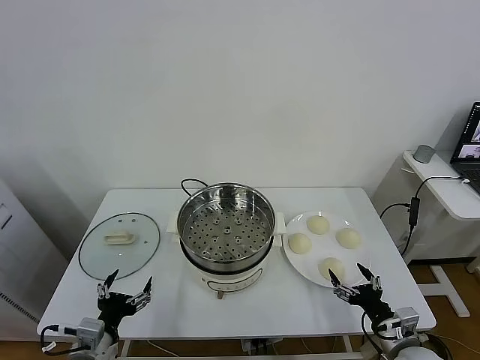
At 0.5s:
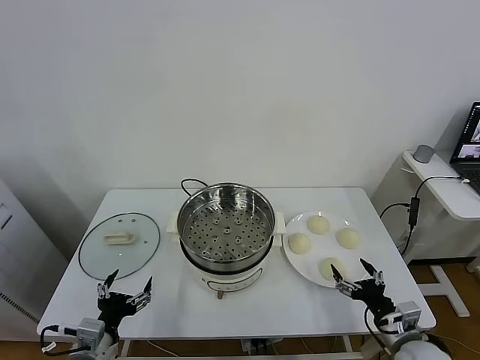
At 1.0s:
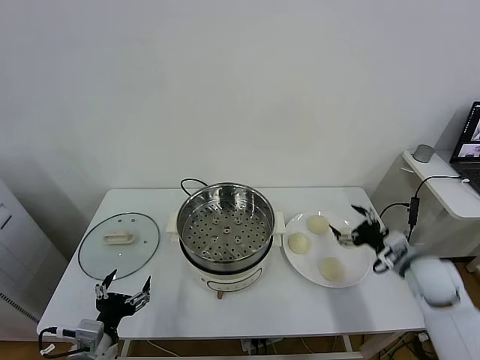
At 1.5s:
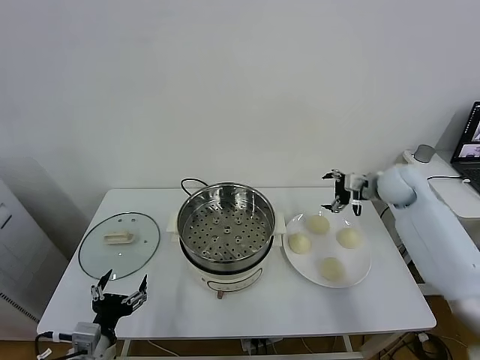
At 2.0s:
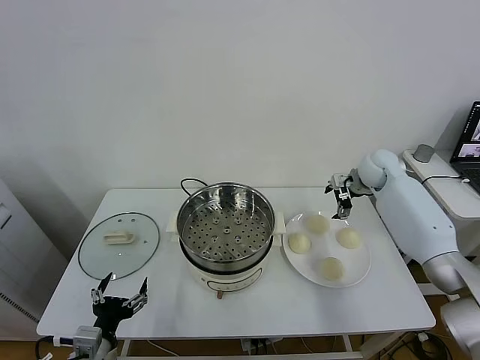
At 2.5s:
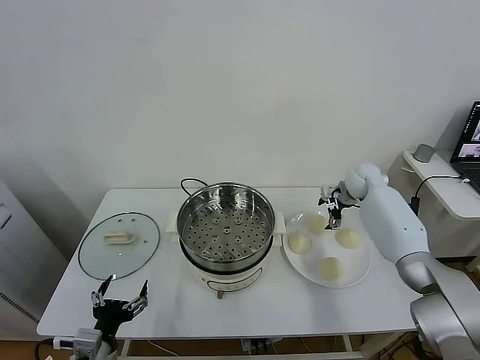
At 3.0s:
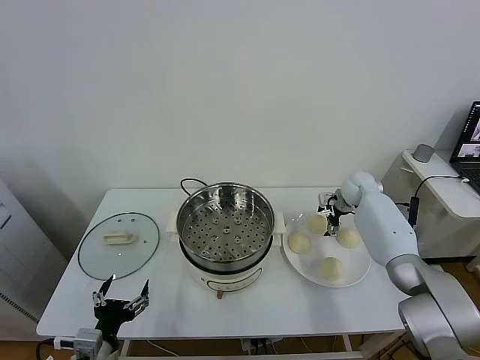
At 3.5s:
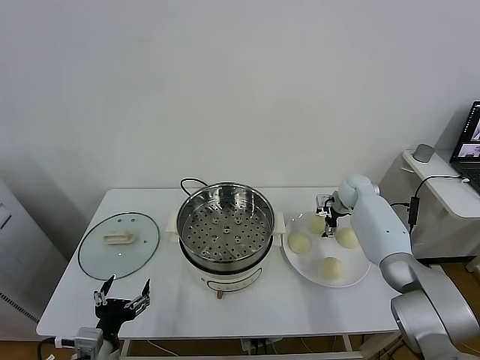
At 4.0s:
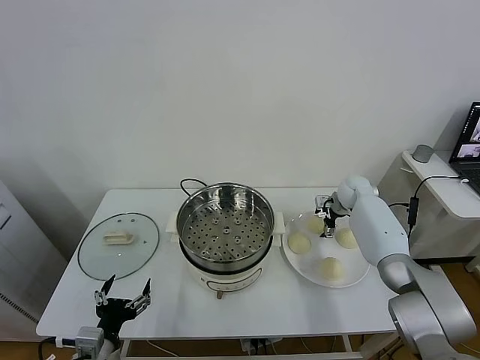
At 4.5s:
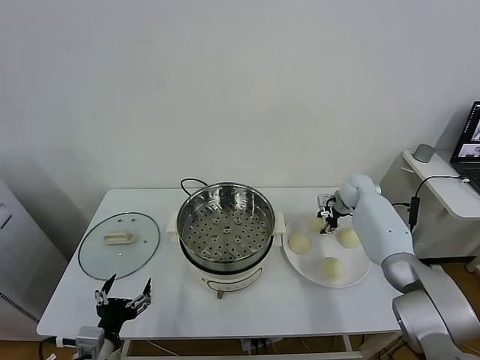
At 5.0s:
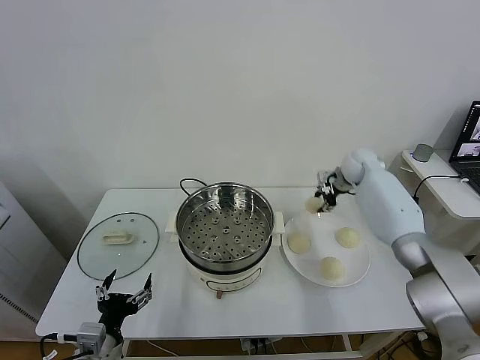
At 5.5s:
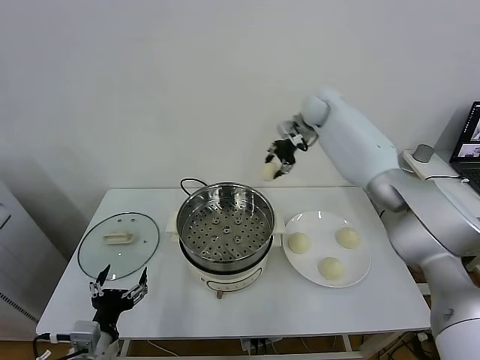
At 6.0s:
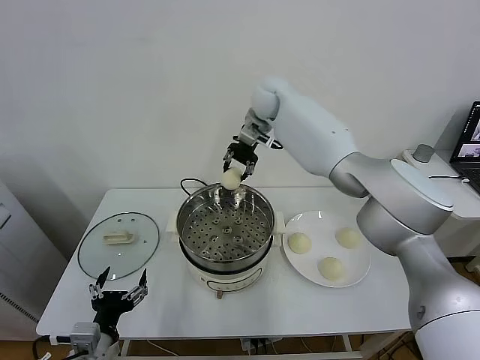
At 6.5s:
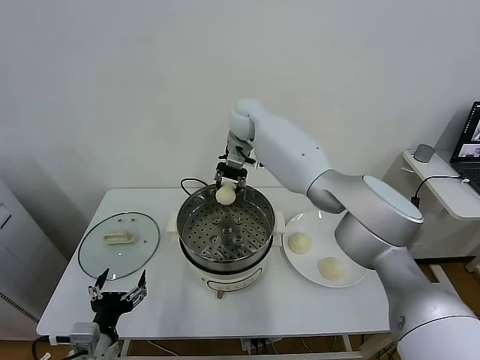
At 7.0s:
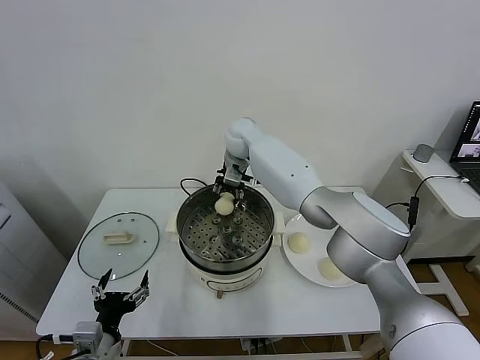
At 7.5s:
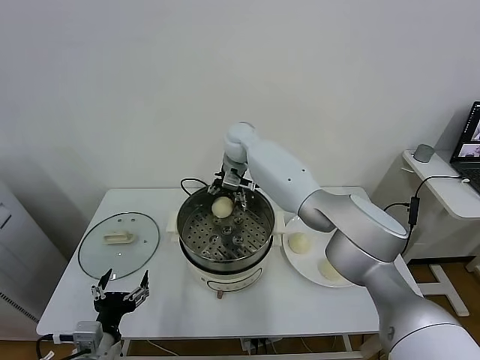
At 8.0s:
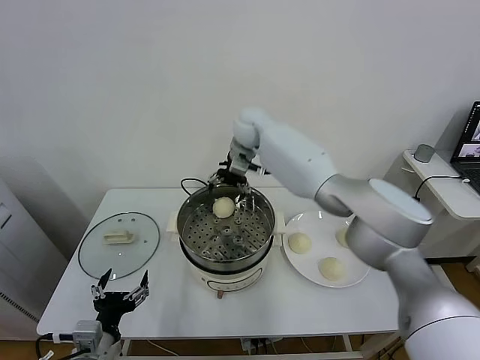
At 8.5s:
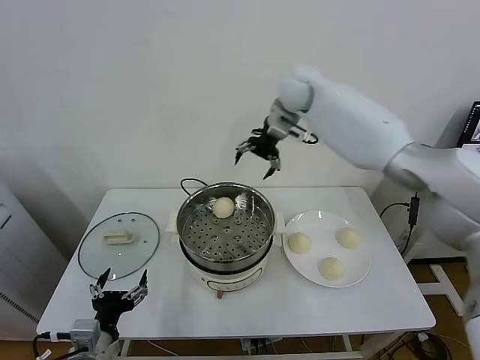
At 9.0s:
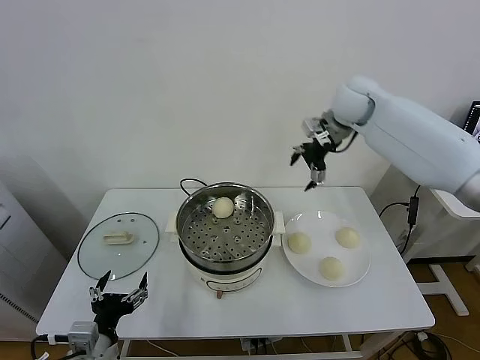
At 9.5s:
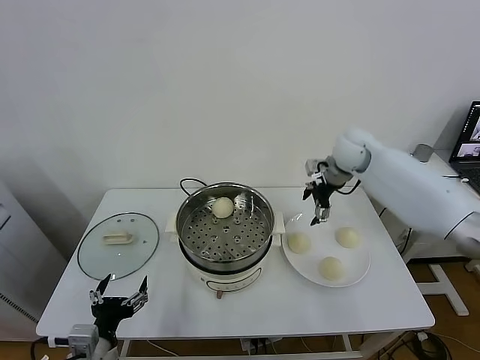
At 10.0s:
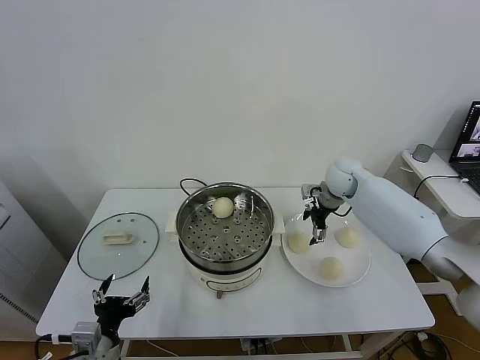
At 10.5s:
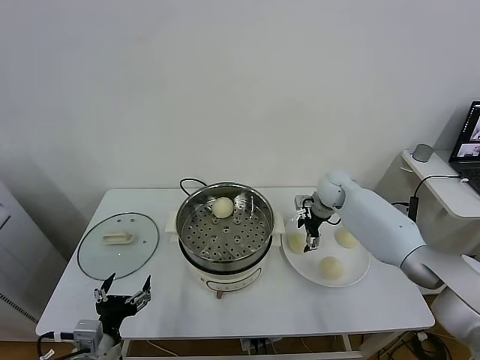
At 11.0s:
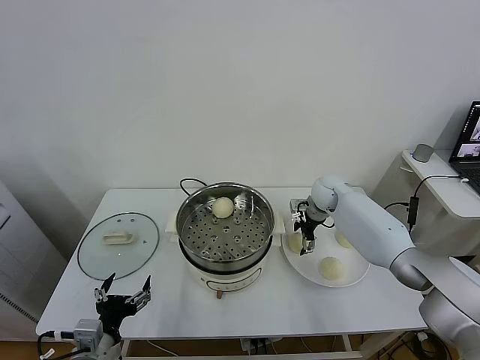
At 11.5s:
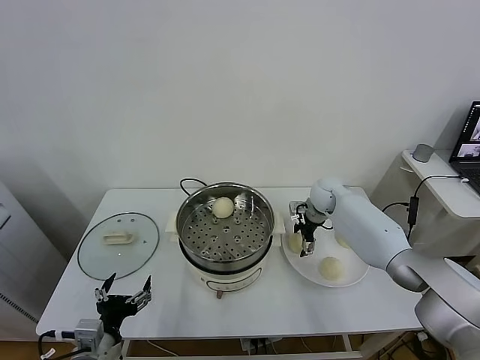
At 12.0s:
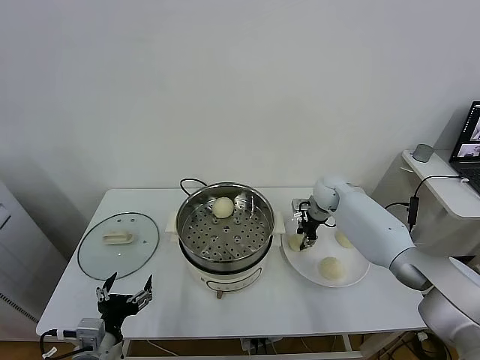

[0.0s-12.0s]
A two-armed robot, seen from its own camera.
Task of the whole recording: take steamed baozi put them in steamer.
Step, 0.0s to 4.0s: Grasp the baozi in the plate with right gripper.
Step, 5.0s to 7.5s: Place the baozi on the steamer with right gripper.
Step, 8.0s to 12.0s: Grasp the baozi in the plate with right gripper.
2.0s to 4.0s: The right gripper heads downward, covering about 10 cm.
4.0s to 6.0s: The right gripper heads upward and to the left, covering about 40 cm, and closes its fingers.
6.0s to 8.0s: The right gripper is displaced downward by some 5 cm, and opens.
8.0s to 10.0s: The right gripper heads to the right and downward, covering approximately 25 cm.
10.0s to 12.0s: The right gripper is displaced downward by some 5 cm, and closes up.

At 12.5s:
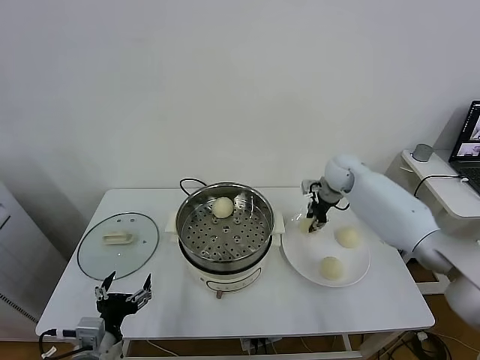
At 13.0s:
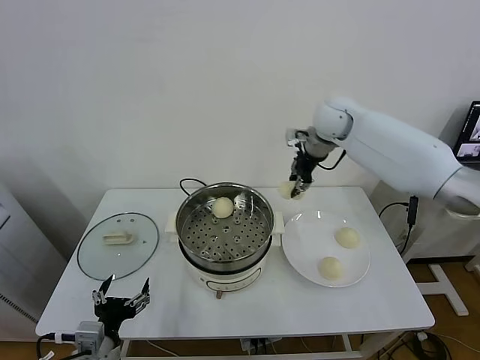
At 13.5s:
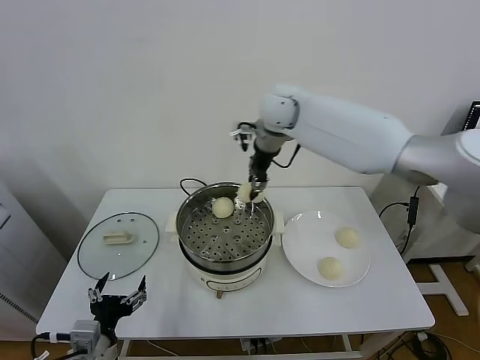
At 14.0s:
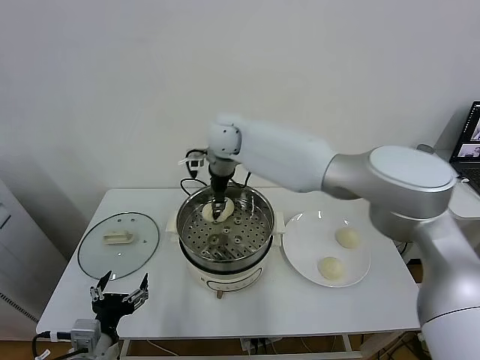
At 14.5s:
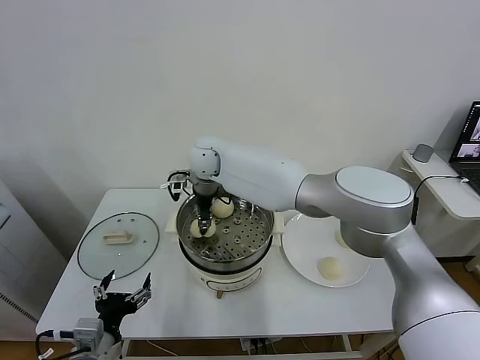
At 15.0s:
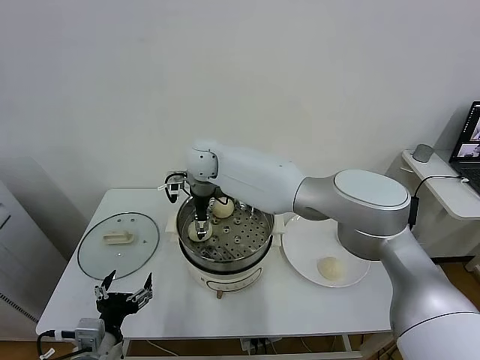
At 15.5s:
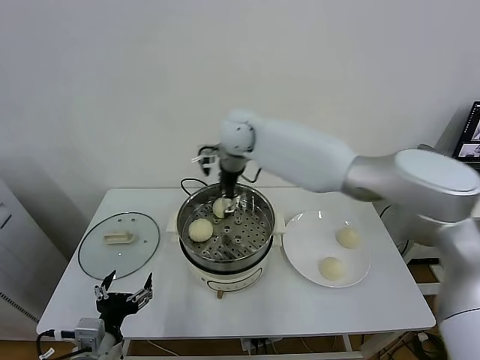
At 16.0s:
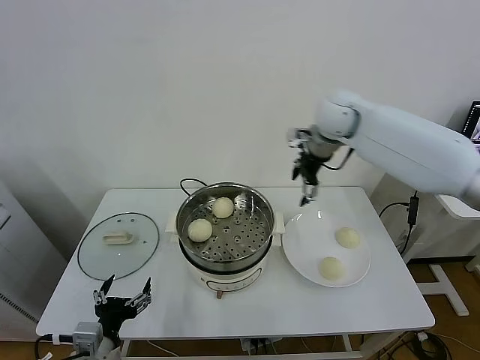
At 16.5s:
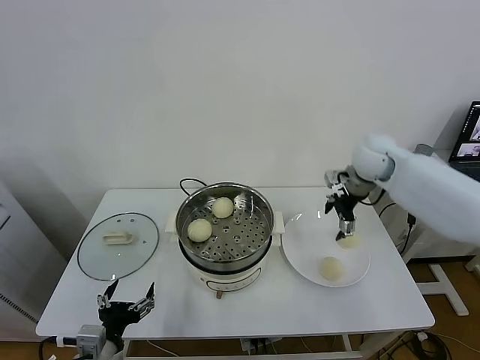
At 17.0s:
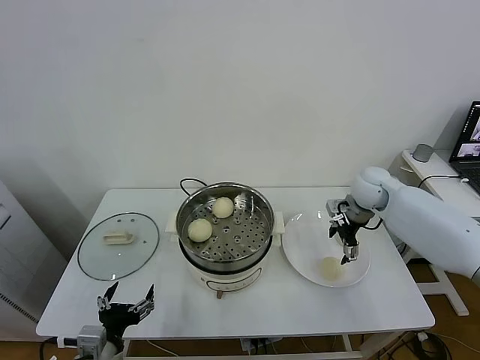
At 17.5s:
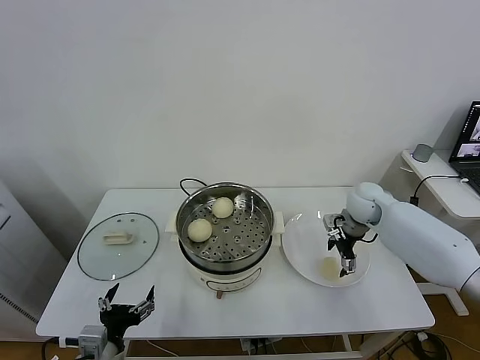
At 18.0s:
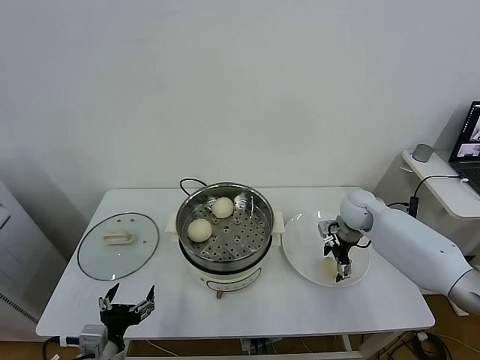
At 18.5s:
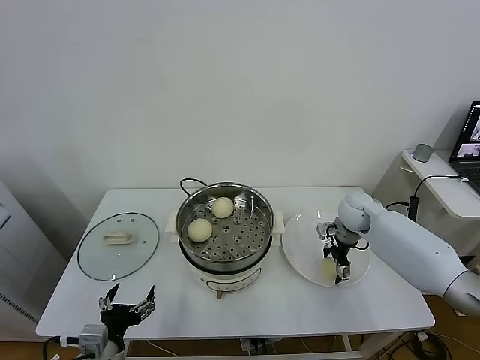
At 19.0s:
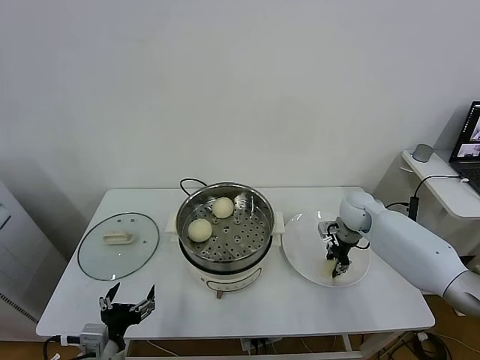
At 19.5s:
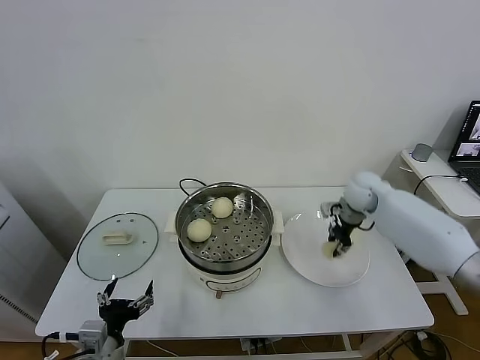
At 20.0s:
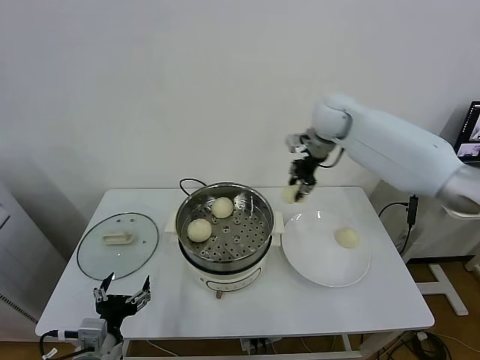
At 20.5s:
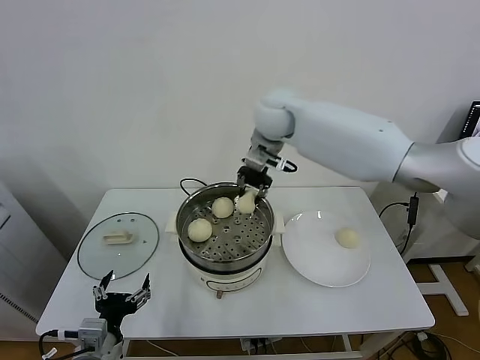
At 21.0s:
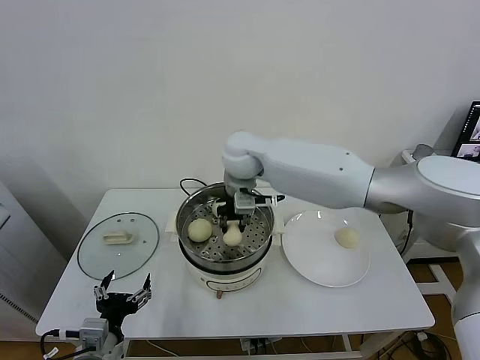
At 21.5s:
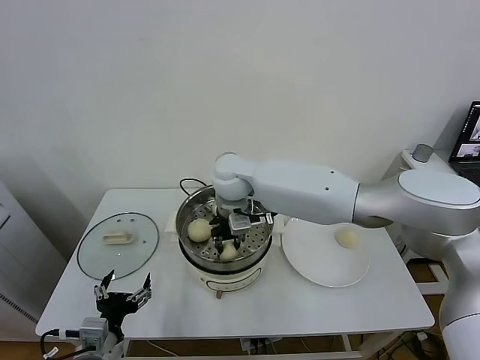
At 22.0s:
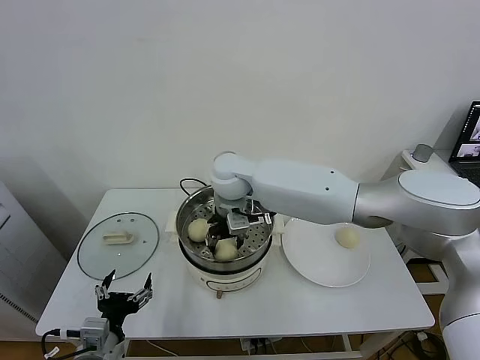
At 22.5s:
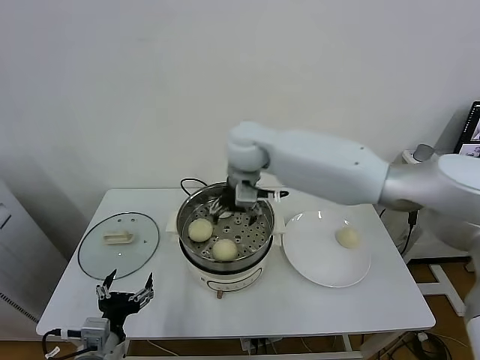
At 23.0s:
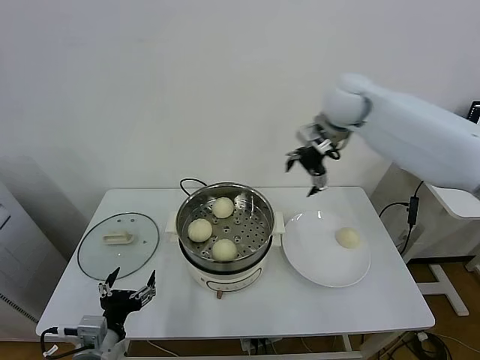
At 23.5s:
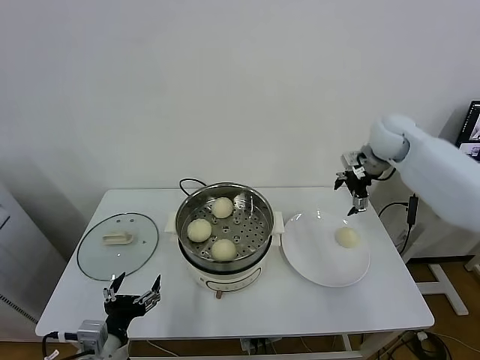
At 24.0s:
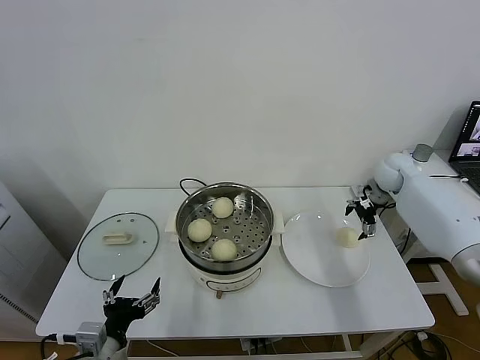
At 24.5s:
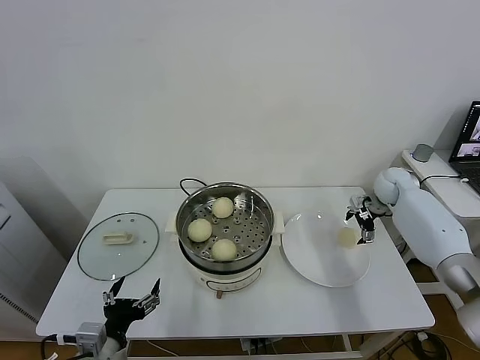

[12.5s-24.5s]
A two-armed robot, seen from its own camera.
Task of the whole recording: take steamed baozi put them in steamer.
Step, 12.5s to 15.0s: Place the baozi on the steamer with right gripper.
Step, 15.5s to 19.0s: Grasp the baozi in the plate with right gripper.
Step, 19.5s to 22.0s: Place the baozi on the steamer with right gripper.
12.5s to 14.5s: The right gripper is displaced to the left by approximately 35 cm.
14.5s to 16.5s: The right gripper is displaced to the right by about 40 cm, and opens.
16.5s to 18.5s: The right gripper moves downward, roughly 15 cm.
18.5s to 20.5s: The right gripper shifts some 35 cm upward and to the left, and closes its fingers.
20.5s to 22.5s: The right gripper is displaced backward and to the left by about 5 cm, reaches approximately 10 cm downward, then returns, and opens its fingers.
22.5s to 24.5s: The right gripper goes roughly 40 cm to the right and downward.

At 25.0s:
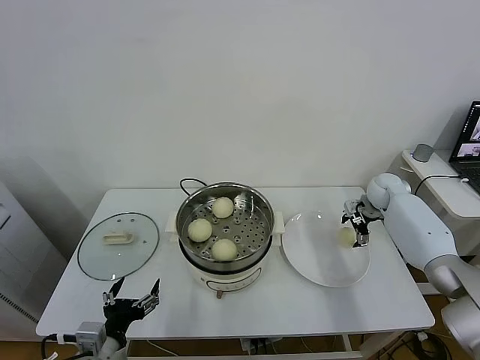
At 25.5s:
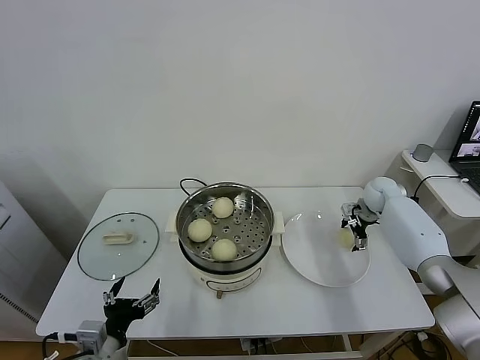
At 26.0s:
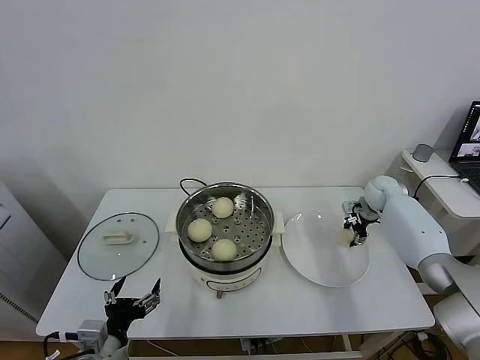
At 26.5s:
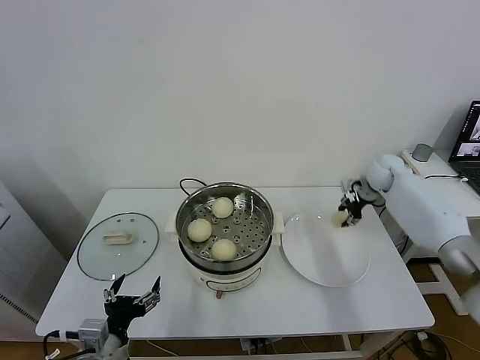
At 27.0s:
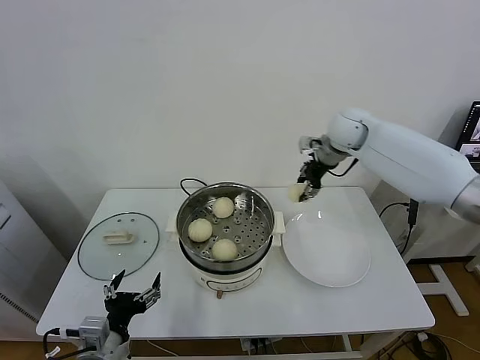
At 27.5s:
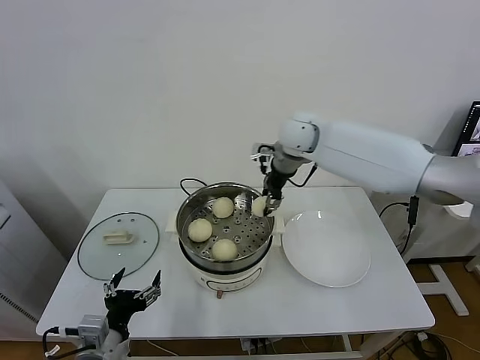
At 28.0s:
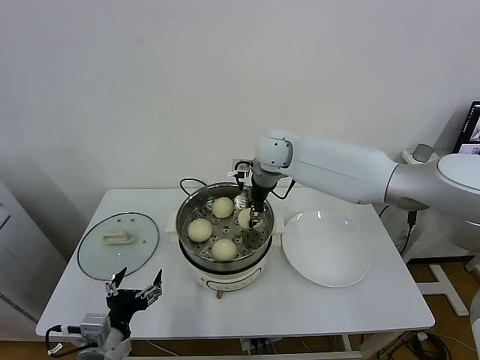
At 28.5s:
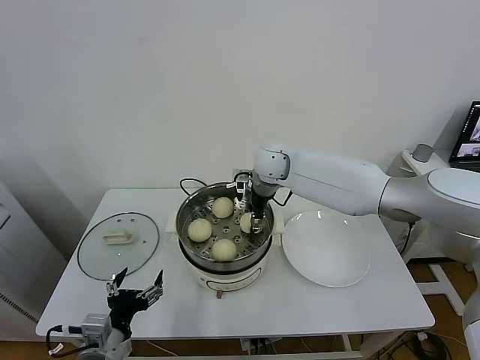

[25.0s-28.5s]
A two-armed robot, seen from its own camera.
Task of the whole recording: take steamed baozi put them in steamer.
25.0s to 27.0s: The right gripper moves upward and to the left, some 25 cm, and closes up.
27.0s to 28.5s: The right gripper heads to the left and downward, covering approximately 20 cm.
